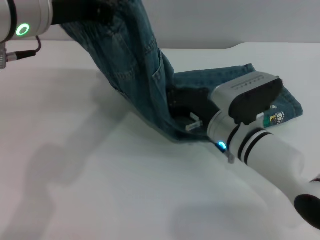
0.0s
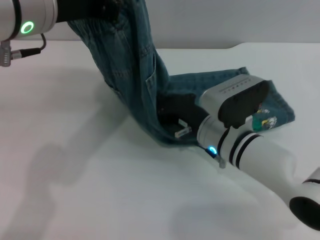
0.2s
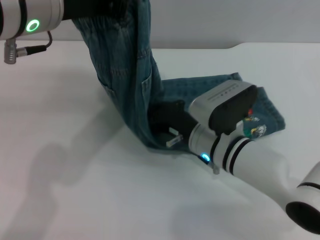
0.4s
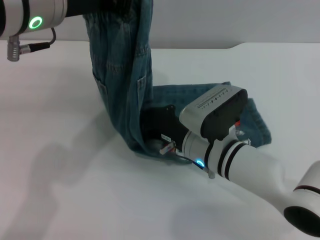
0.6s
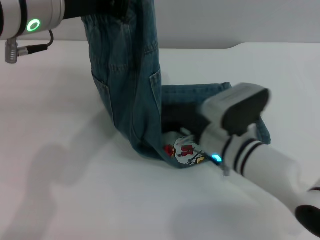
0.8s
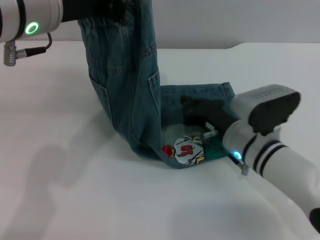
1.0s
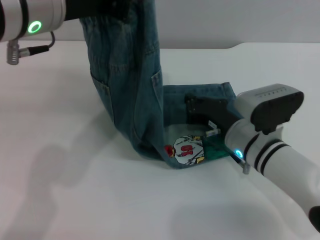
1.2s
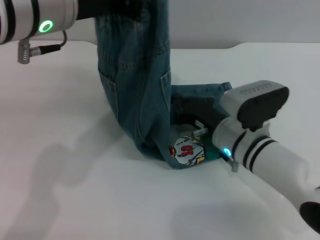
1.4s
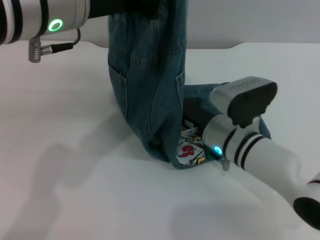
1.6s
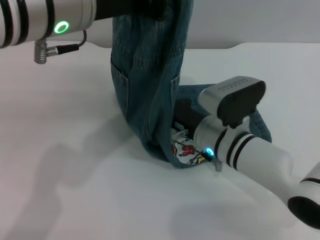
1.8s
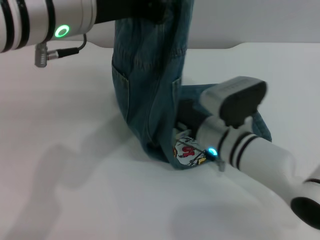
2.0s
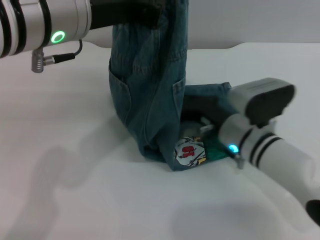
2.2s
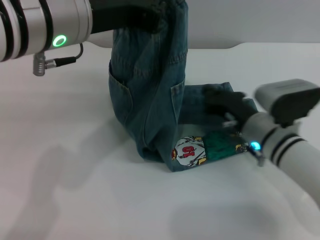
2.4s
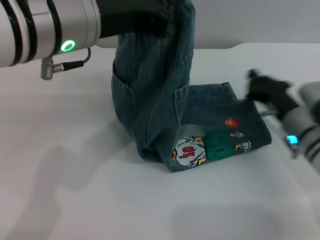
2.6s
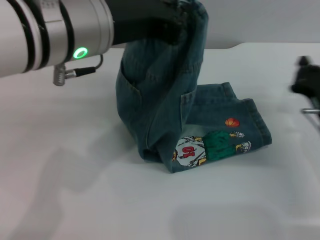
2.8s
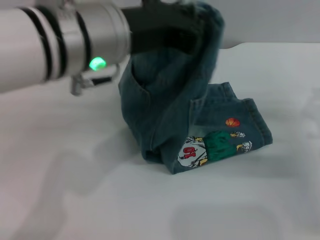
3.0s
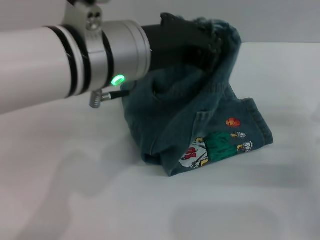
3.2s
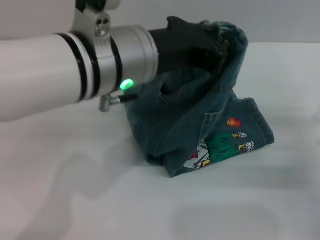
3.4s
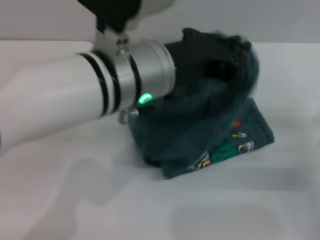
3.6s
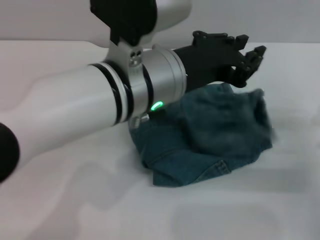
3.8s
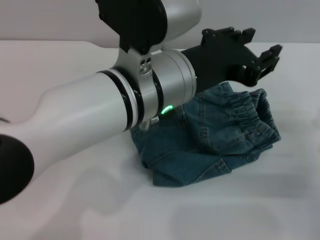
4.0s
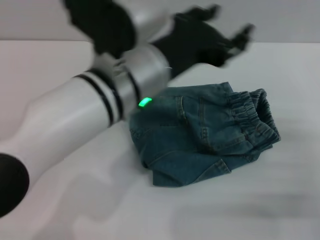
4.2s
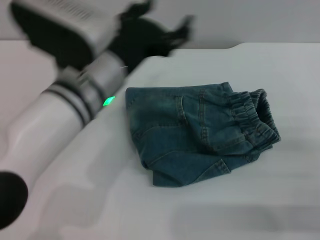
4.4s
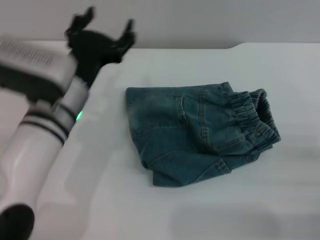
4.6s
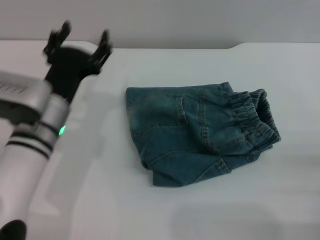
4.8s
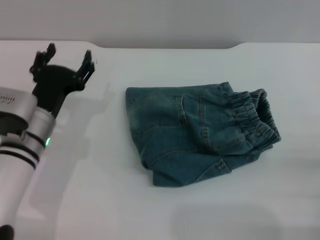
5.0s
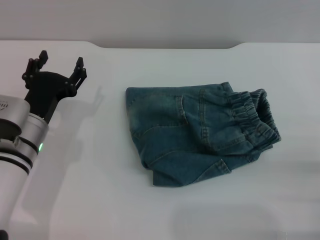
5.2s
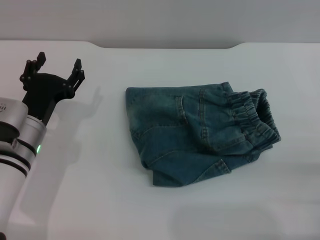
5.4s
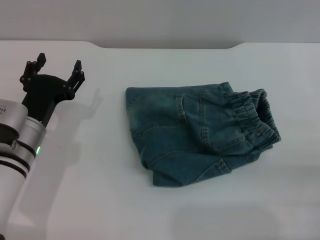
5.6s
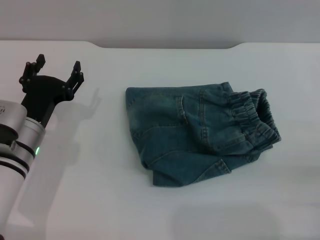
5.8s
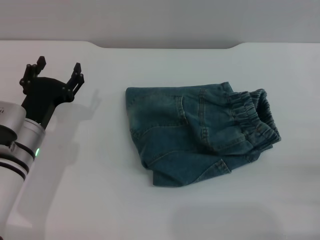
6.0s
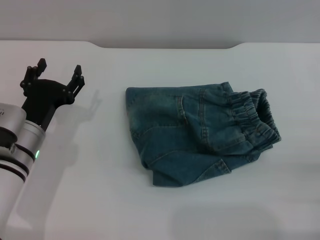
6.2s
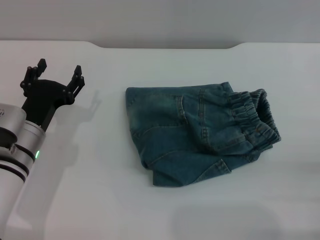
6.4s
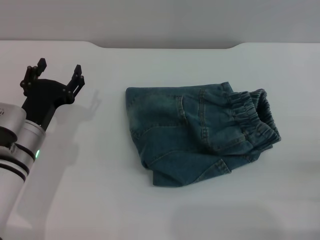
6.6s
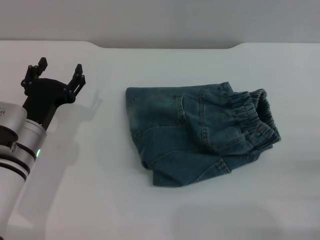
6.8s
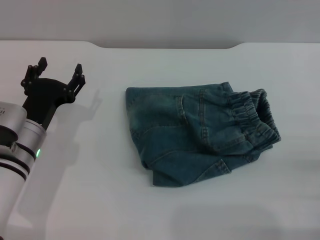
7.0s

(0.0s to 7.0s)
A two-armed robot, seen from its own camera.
Step, 0.0s - 3.8s: Fold the pants from left to right with the left gripper.
1.4s - 2.8s: The right gripper travels to the right by roughly 15 cm.
2.8s - 4.2s: The left gripper moves downward, about 5 cm, and opens. Meanwhile the right gripper shifts roughly 10 cm backward.
4.2s - 5.6s: The left gripper goes approximately 25 cm downward and to the left, and opens up. The right gripper moves backward, about 5 cm, and opens up.
5.6s - 7.0s: The two grippers keep their place.

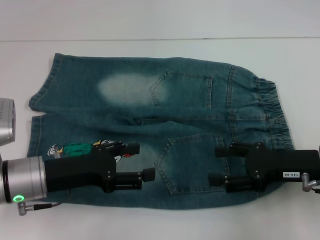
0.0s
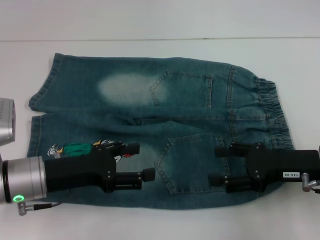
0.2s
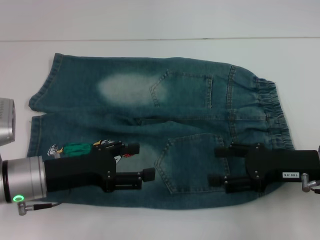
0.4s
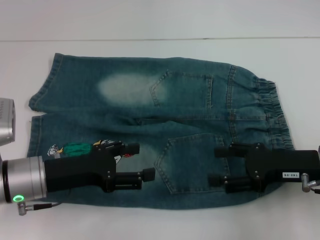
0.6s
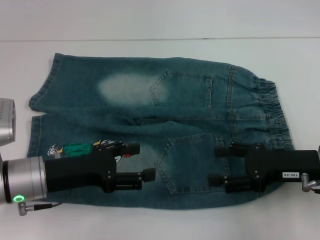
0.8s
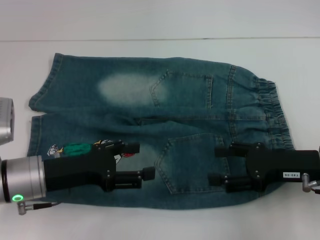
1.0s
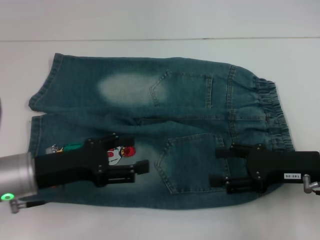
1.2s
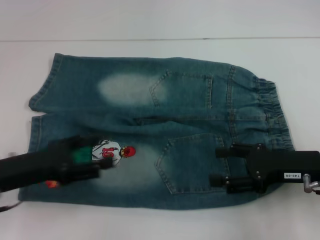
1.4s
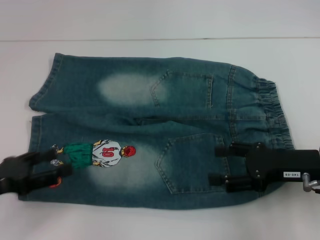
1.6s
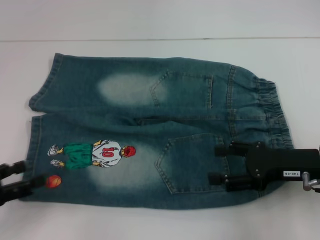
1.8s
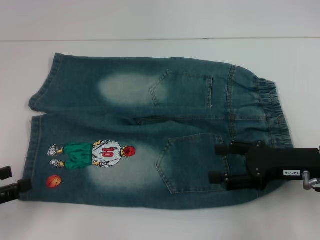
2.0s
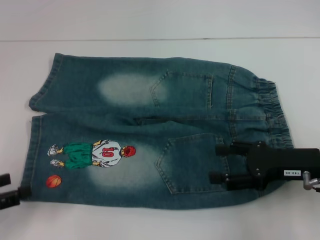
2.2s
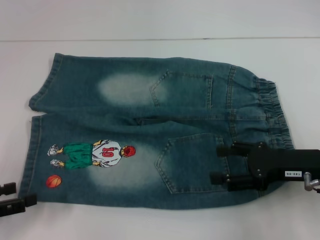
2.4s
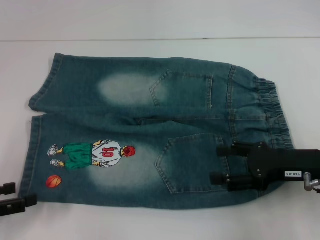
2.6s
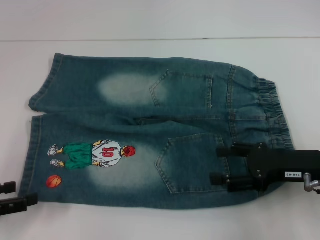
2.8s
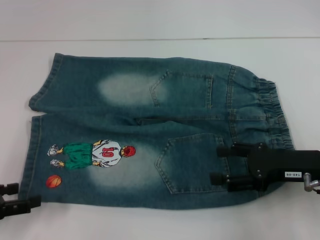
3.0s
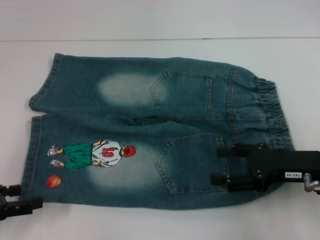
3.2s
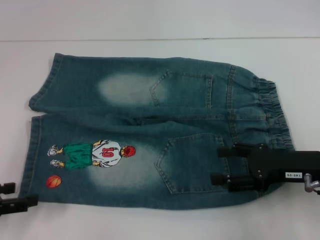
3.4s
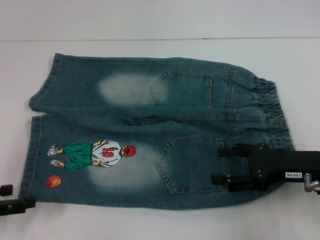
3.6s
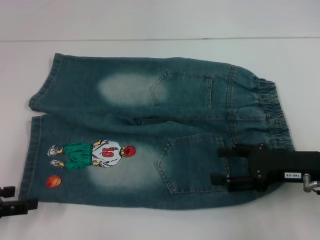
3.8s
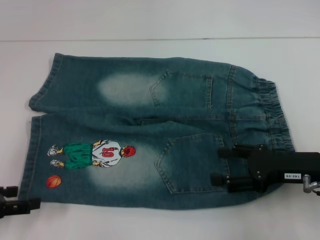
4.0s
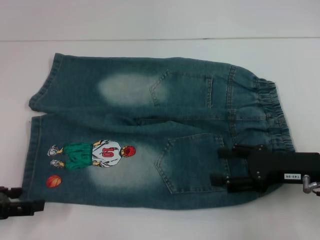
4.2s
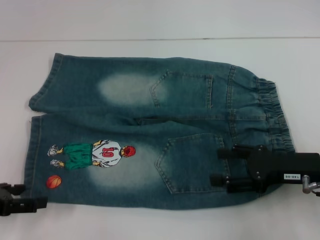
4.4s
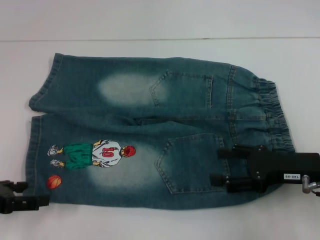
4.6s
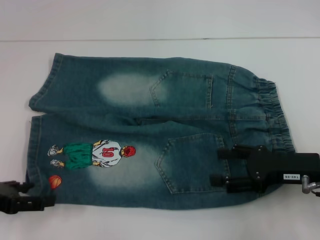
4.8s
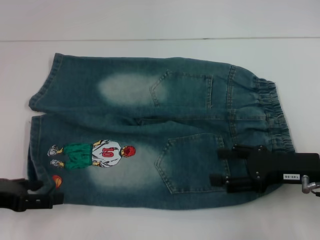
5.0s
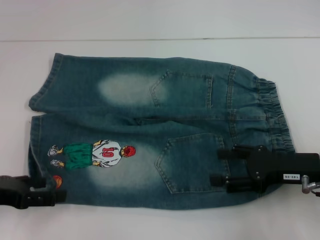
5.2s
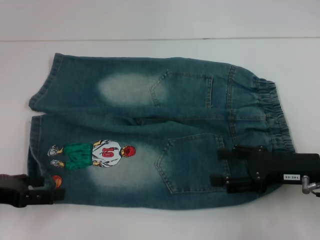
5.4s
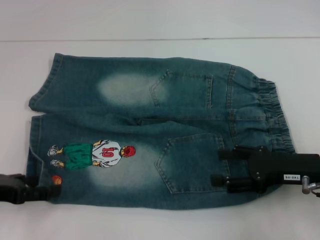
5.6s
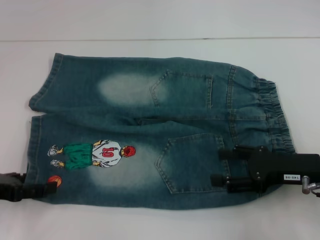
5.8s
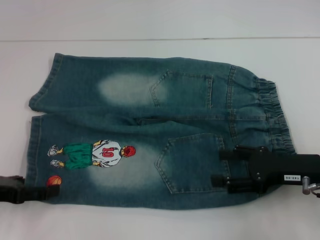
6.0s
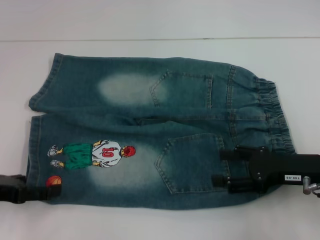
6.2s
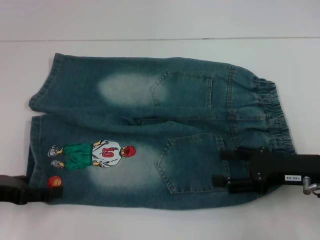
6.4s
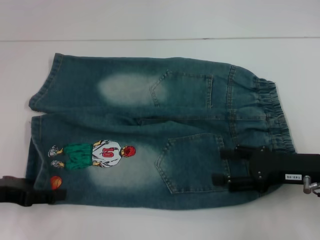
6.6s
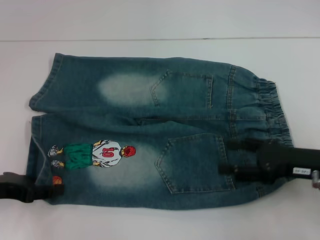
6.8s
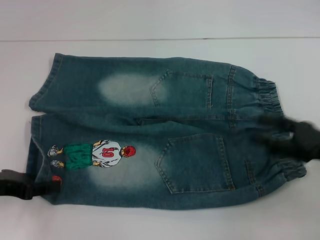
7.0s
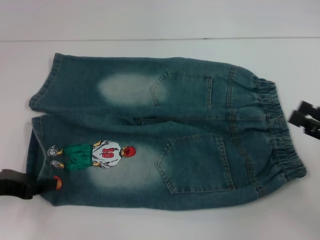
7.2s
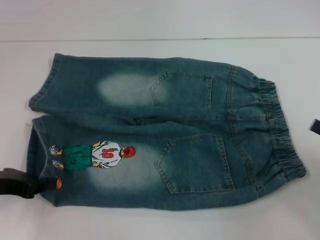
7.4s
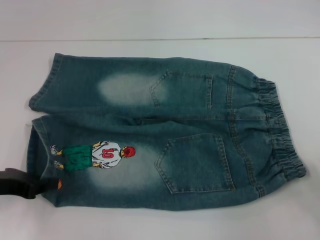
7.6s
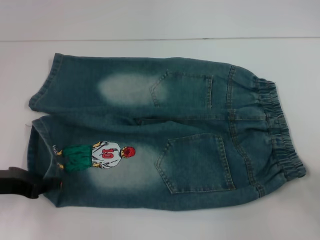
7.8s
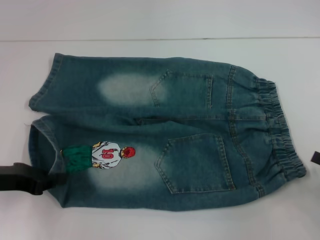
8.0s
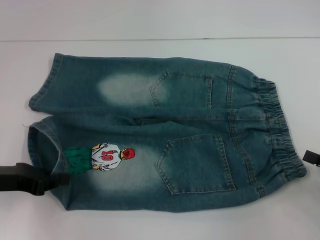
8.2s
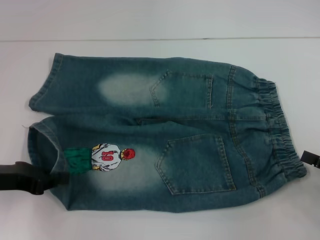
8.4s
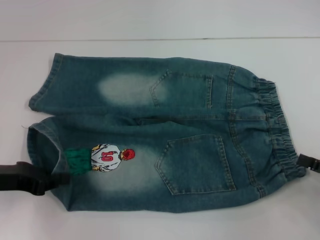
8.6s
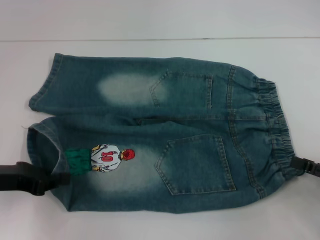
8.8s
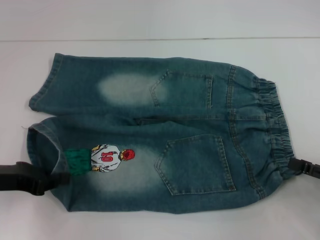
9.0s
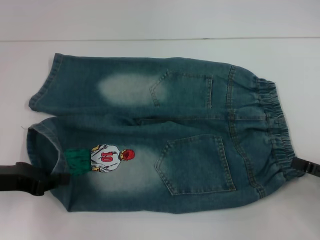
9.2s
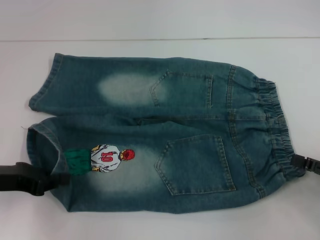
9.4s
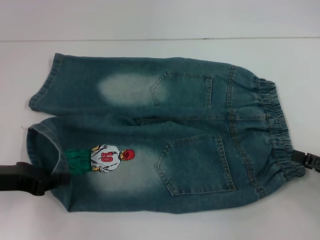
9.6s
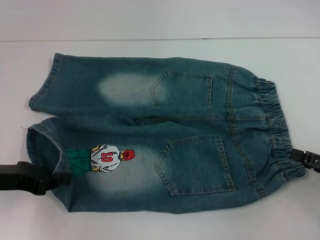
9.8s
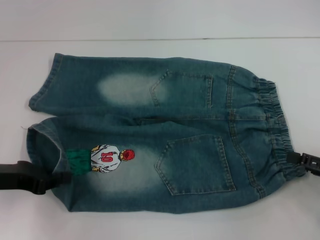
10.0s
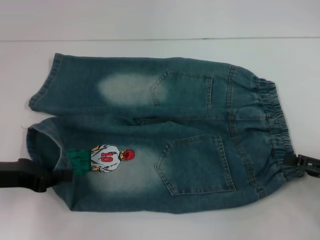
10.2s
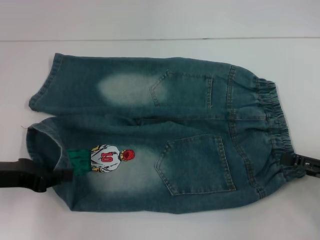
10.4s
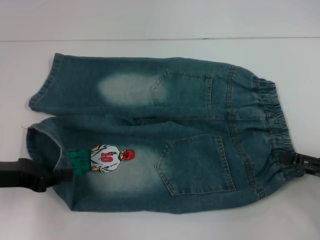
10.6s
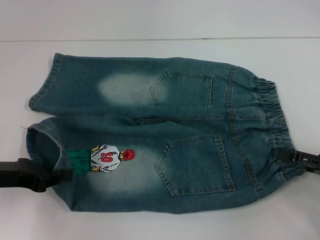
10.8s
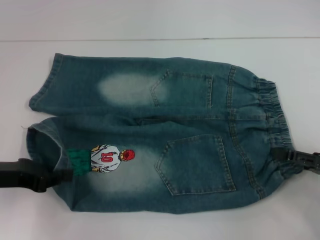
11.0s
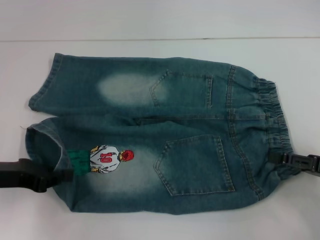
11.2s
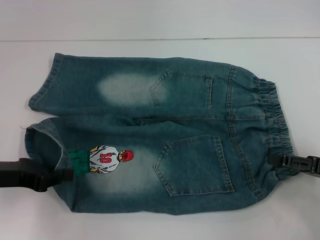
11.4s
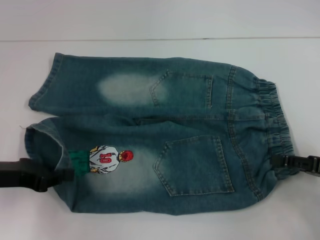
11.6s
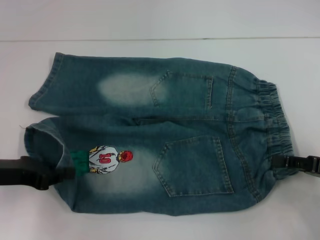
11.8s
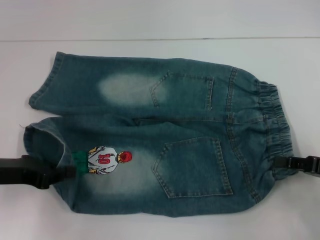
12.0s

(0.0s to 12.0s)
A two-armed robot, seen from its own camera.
Step, 0.0s - 7.6s: Grab the lower left pant leg with your left hand.
Step, 7.8s - 11.2s: Hold the lower right waistband with your right hand.
0.0s - 1.6s: The left gripper travels to the left by approximately 10 cm.
3.0s - 6.0s: There are only small adjustments of the grippers.
6.0s - 7.6s: The right gripper shifts approximately 15 cm to the right and backward, while the left gripper closes up.
7.6s - 10.4s: There are only small adjustments of the grippers.
10.4s - 12.0s: The right gripper closes up.

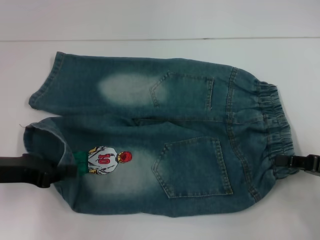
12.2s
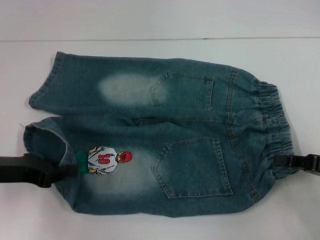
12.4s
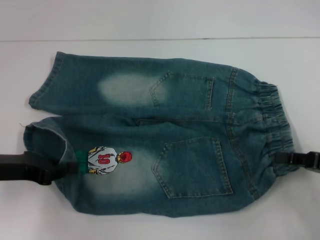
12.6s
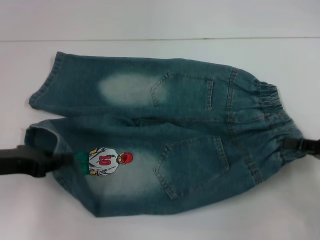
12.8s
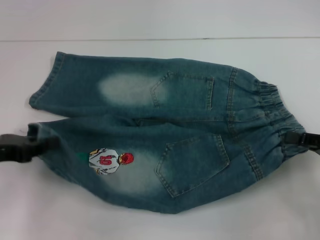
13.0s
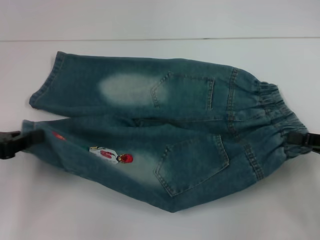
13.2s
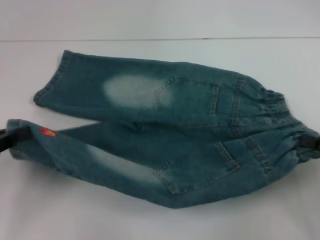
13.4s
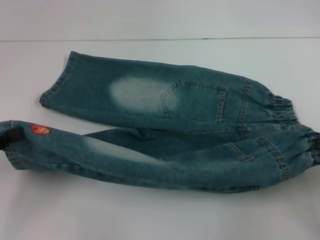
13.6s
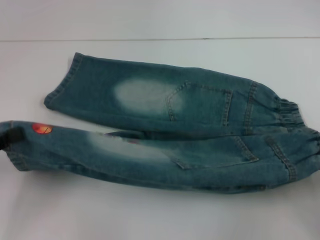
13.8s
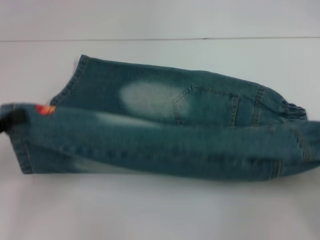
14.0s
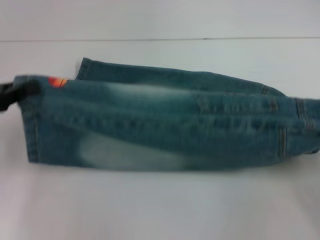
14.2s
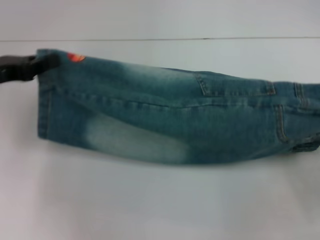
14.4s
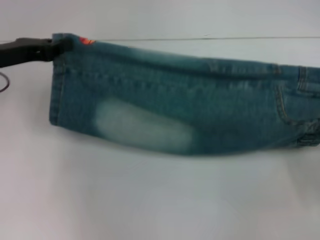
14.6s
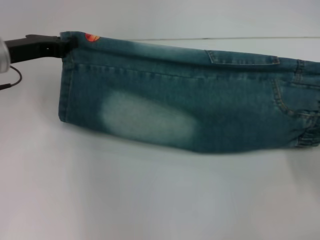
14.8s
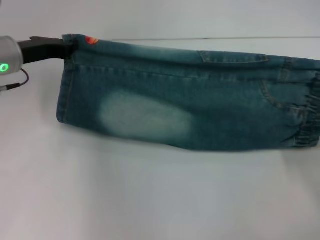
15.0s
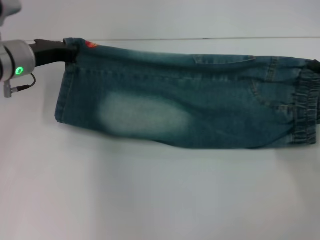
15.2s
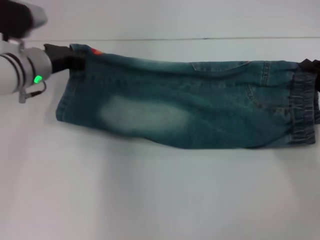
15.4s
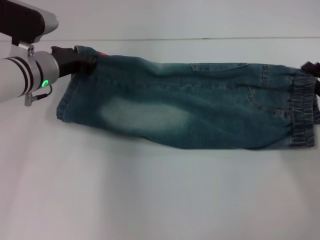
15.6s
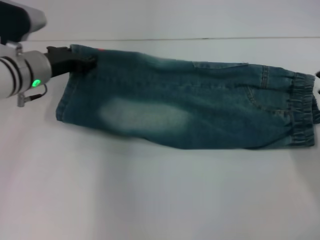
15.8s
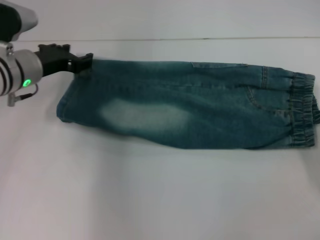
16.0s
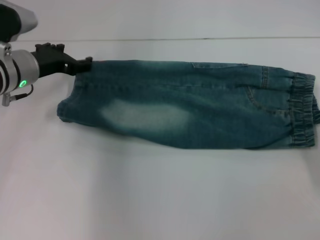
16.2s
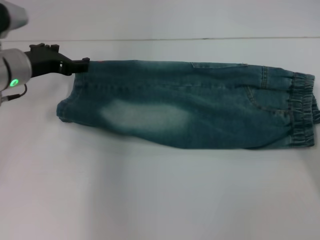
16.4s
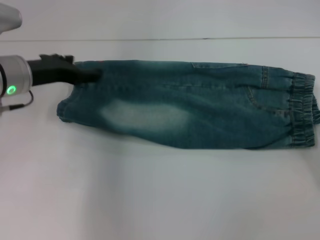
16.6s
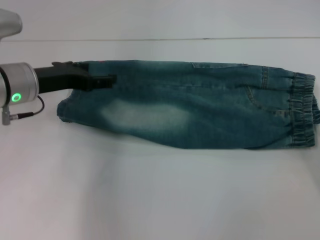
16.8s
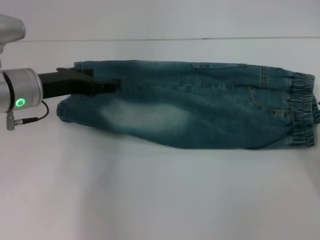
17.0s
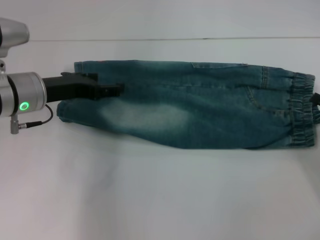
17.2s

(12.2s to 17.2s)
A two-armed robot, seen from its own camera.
Step, 12.2s - 16.0s: Fold upward with your right hand.
12.2s - 13.8s: The right gripper changes place by approximately 5 cm, while the left gripper moves to the left, approximately 5 cm.
13.8s - 15.6s: The right gripper is displaced forward and to the left by roughly 15 cm. The left gripper moves forward and to the right, about 25 cm.
15.6s - 17.2s: The left gripper moves backward, some 5 cm, and opens its fingers; the right gripper opens.
